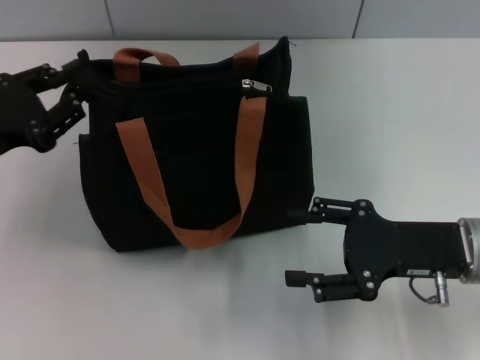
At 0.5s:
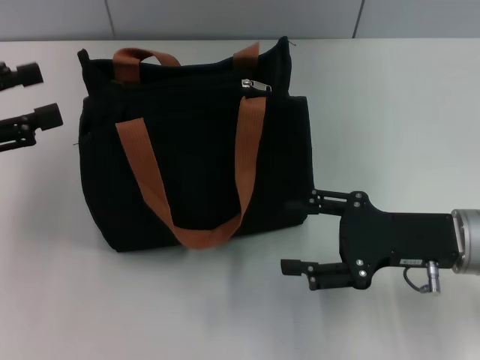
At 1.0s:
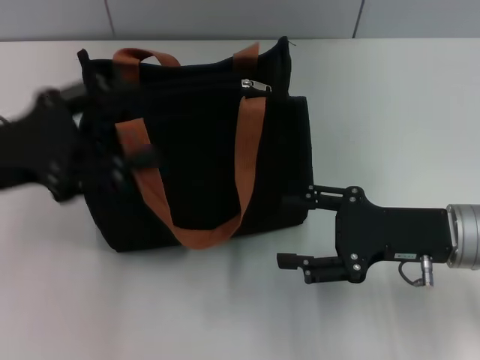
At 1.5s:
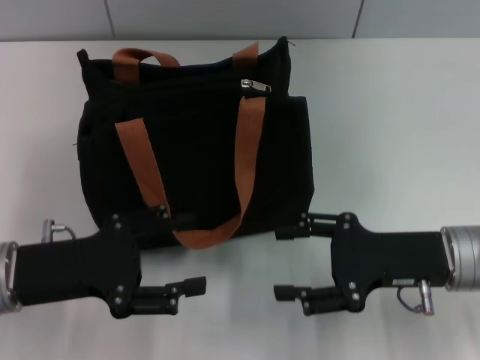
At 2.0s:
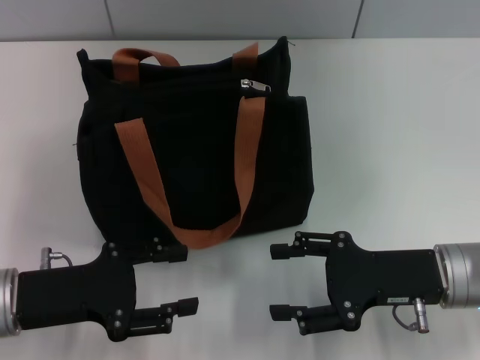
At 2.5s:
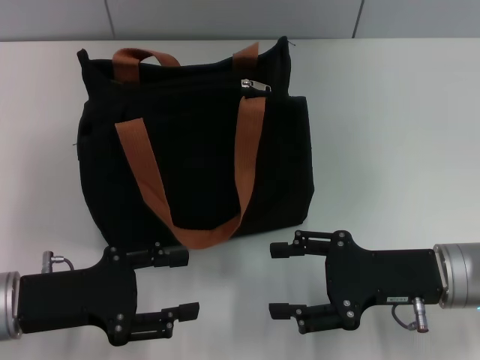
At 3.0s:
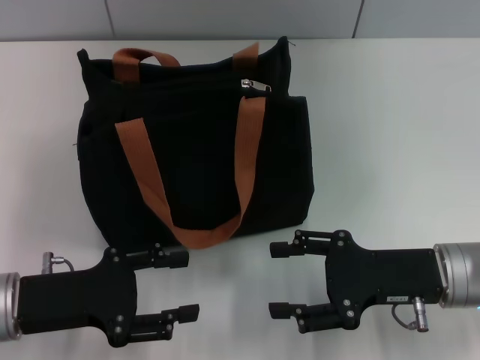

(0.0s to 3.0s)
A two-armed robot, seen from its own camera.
0.0s - 1.5s: The left gripper moves to the right and backward, some 10 cm, and opens.
1.5s - 3.0s: The grippers stay close to where they were, moving slightly.

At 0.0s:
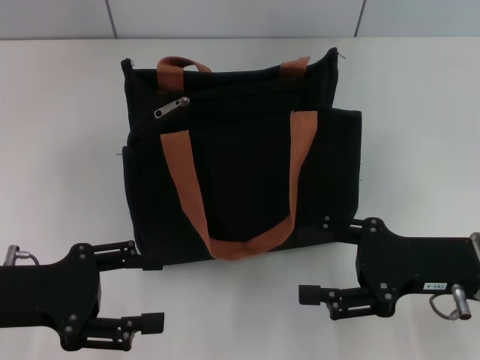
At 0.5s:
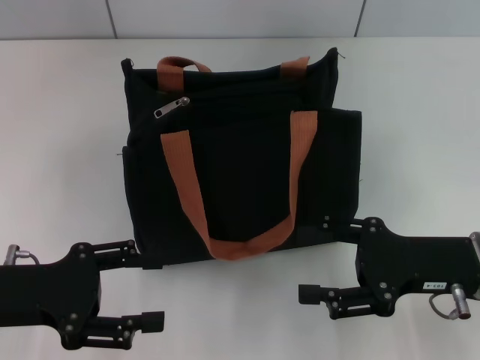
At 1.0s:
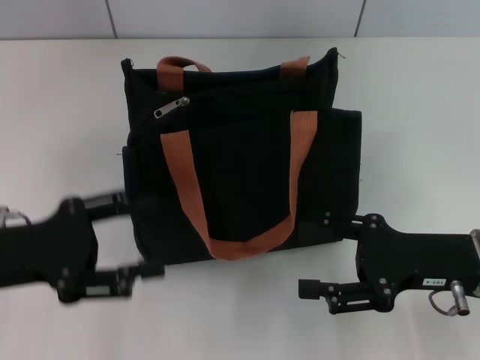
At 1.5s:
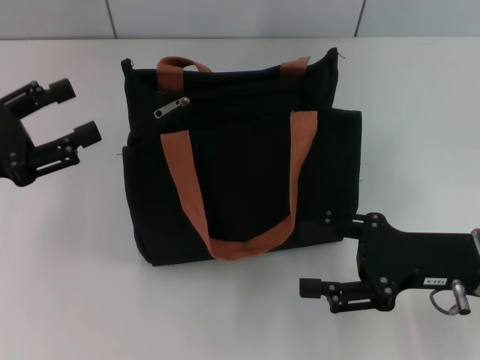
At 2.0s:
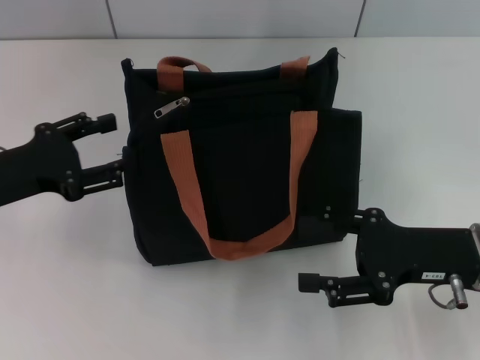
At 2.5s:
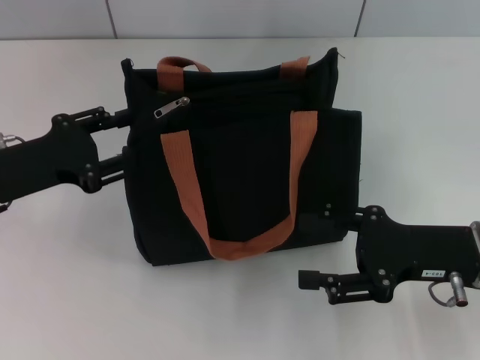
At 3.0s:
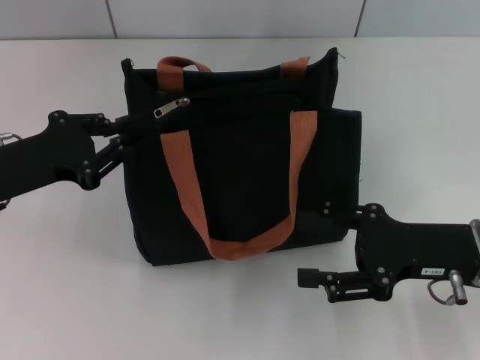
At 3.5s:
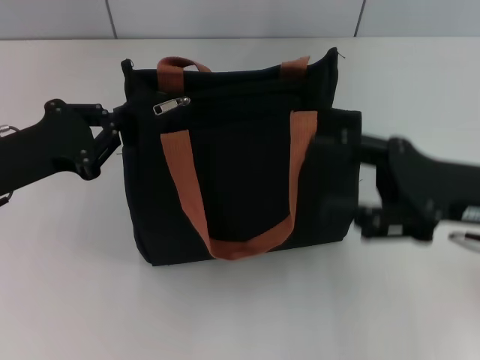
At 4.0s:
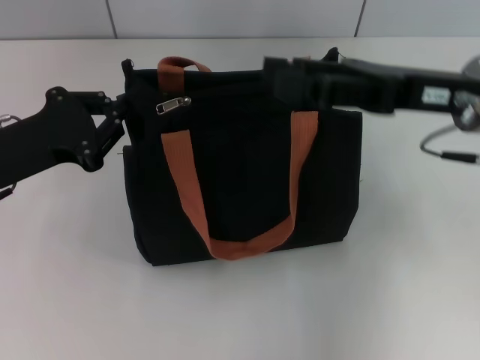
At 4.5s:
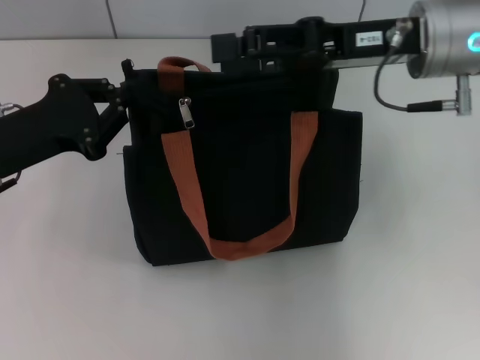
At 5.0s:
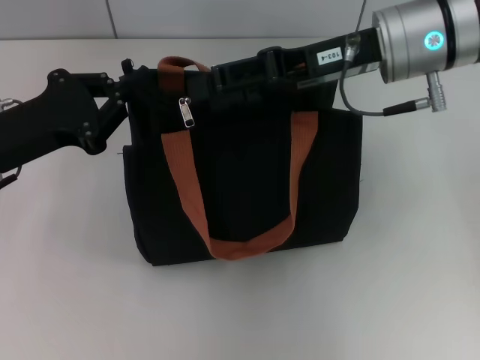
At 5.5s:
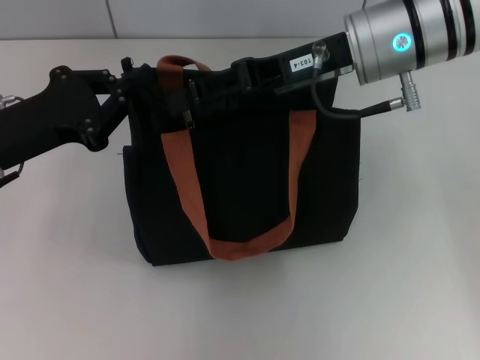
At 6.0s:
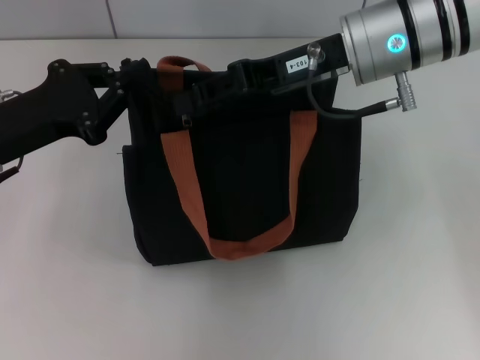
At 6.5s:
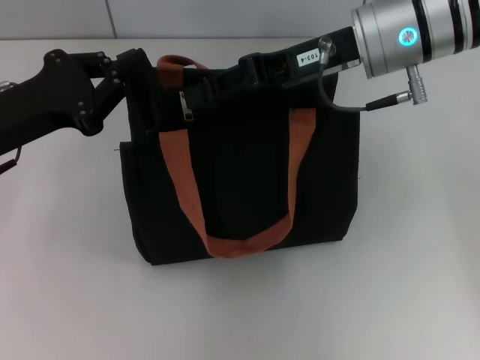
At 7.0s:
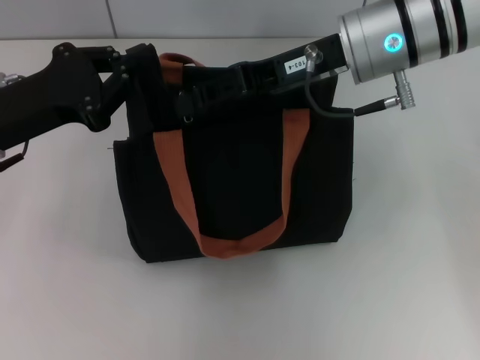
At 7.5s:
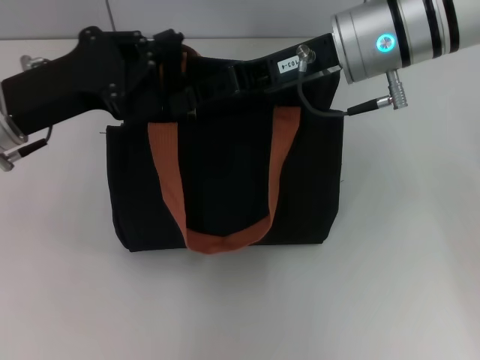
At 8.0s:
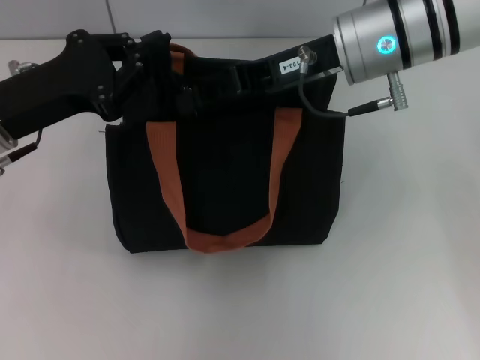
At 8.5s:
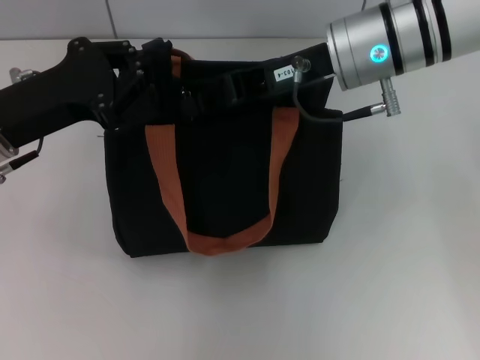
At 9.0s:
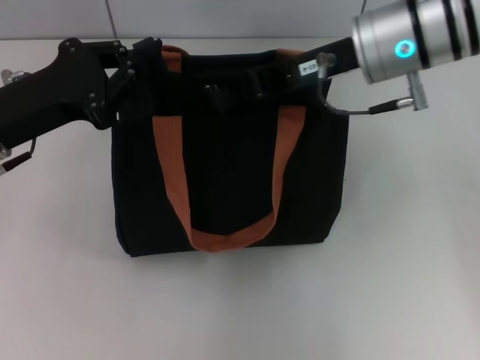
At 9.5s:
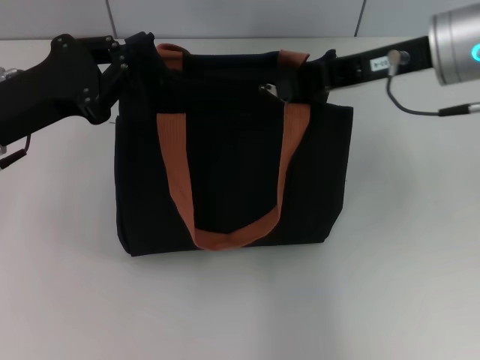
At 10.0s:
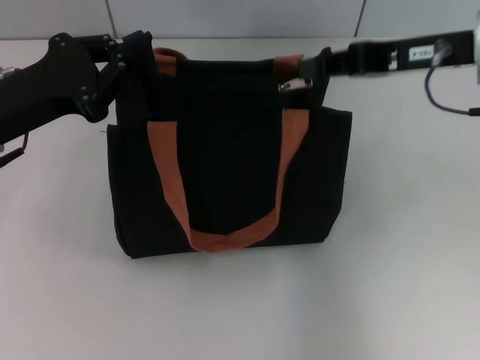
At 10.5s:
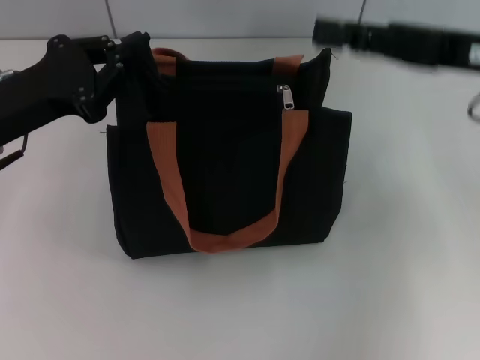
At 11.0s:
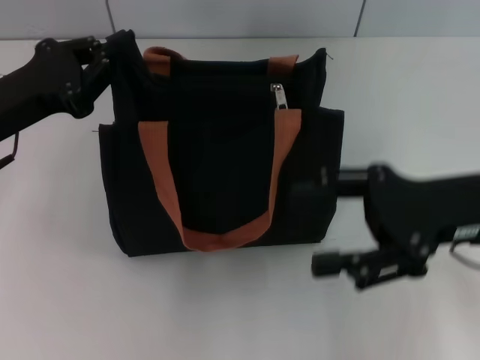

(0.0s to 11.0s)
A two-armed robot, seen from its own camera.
Step, 0.0s - 10.0s: Pull up the zipper with your right hand.
0.0s - 2.0s: The left gripper goes some 5 cm forward.
2.0s - 3.5s: The right gripper is displaced upward by some 5 cm. The left gripper closes.
3.5s - 5.5s: The right gripper travels forward, to the left and upward by some 20 cm.
5.5s - 7.5s: The right gripper closes.
7.5s - 9.0s: The right gripper closes its fingers.
9.0s - 11.0s: The right gripper heads backward, to the right and downward, covering about 15 cm, and opens up.

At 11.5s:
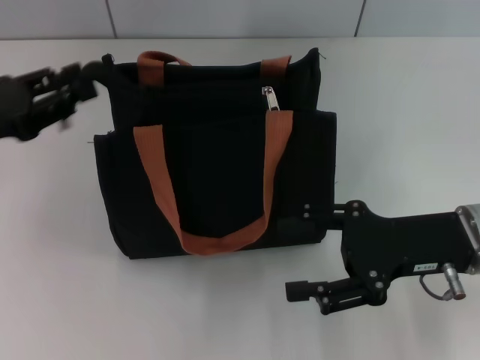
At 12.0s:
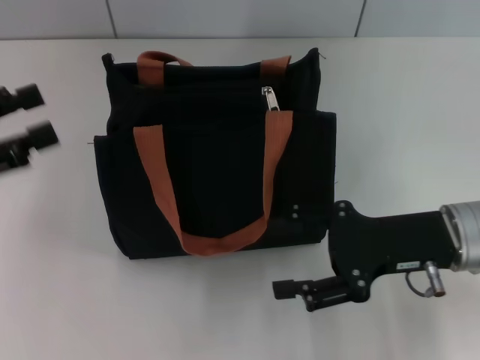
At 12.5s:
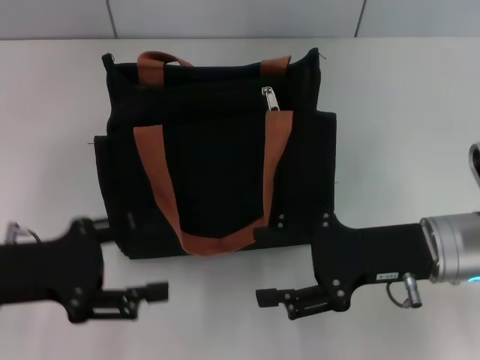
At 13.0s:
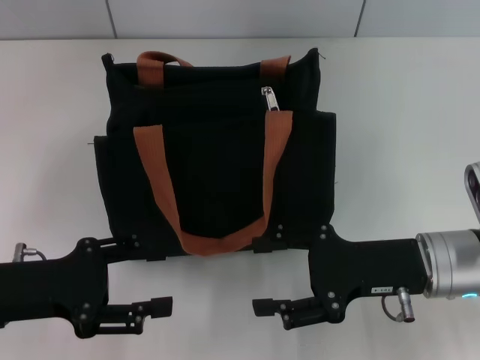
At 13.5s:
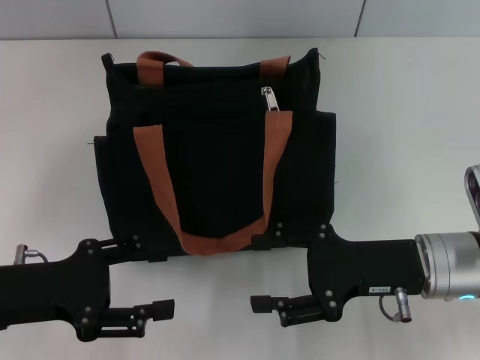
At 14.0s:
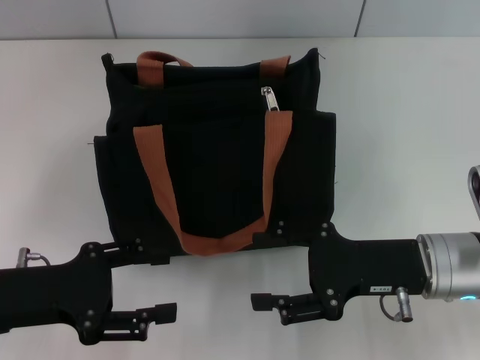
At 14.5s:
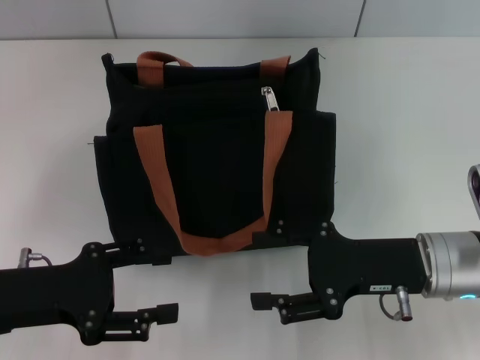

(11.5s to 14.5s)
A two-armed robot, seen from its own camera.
11.5s - 13.0s: The left gripper shifts roughly 10 cm backward and downward, and opens up.
13.0s - 14.5s: The two grippers keep their place.

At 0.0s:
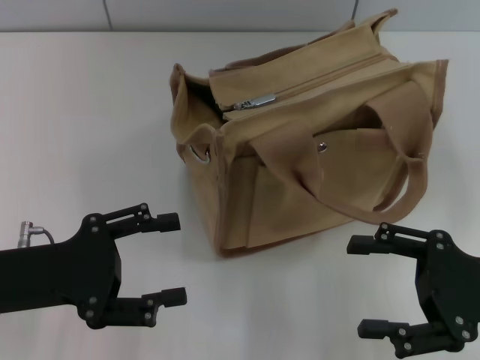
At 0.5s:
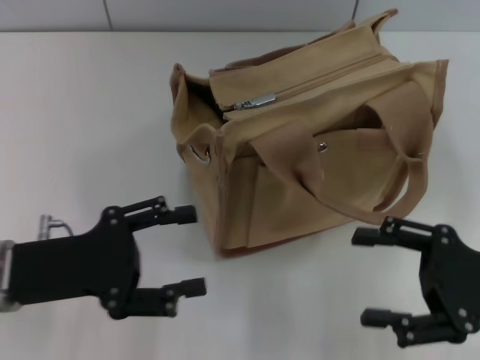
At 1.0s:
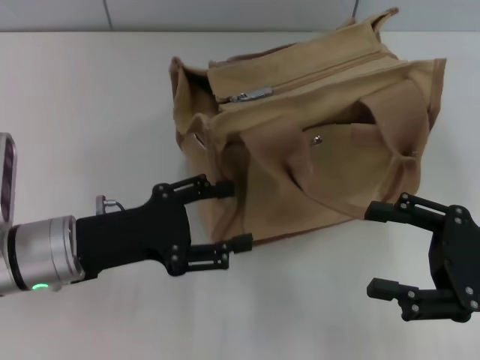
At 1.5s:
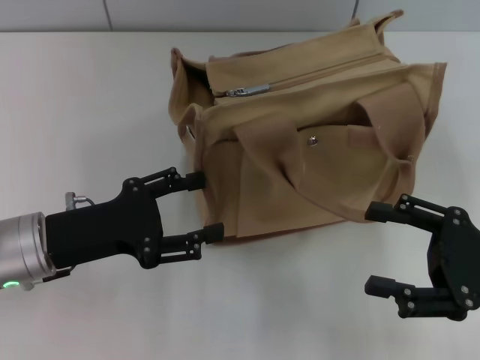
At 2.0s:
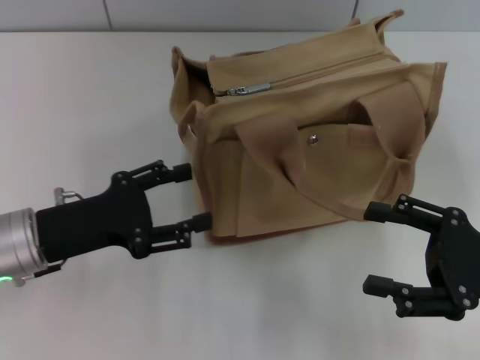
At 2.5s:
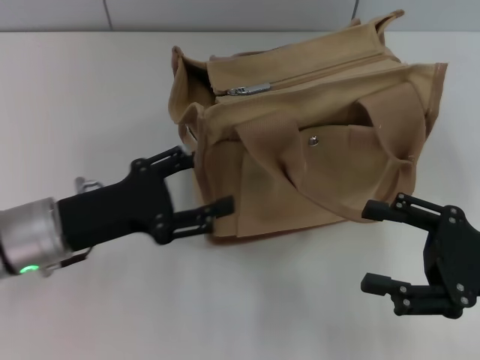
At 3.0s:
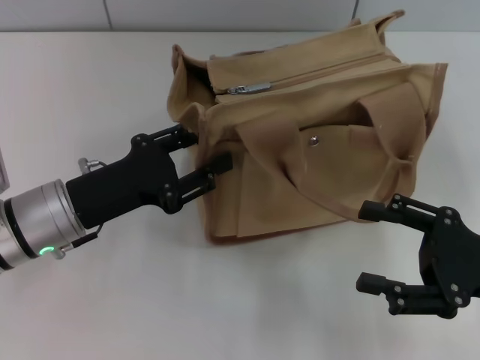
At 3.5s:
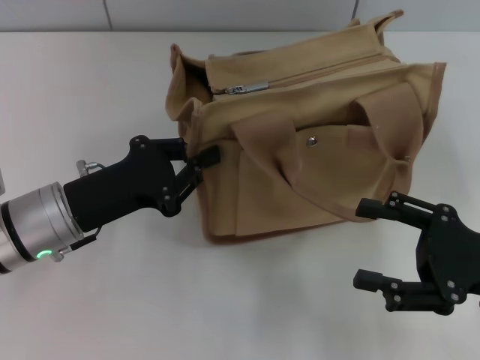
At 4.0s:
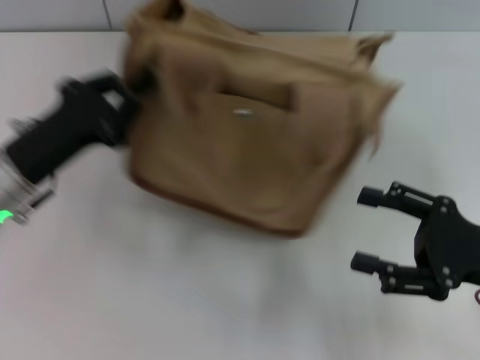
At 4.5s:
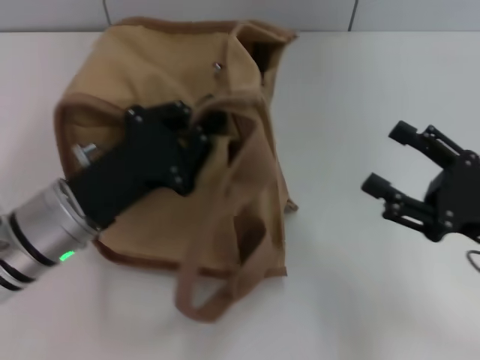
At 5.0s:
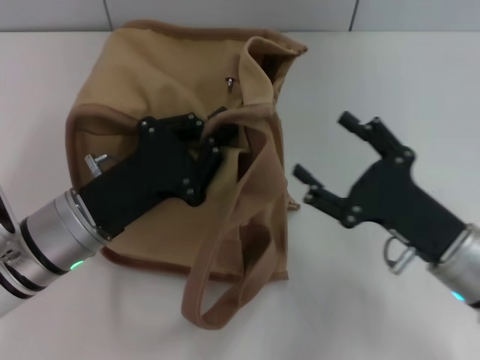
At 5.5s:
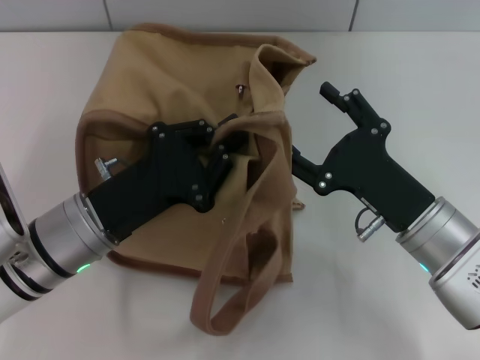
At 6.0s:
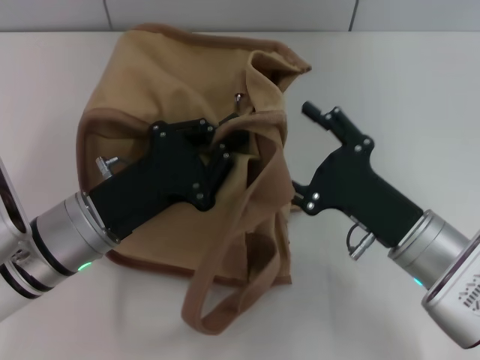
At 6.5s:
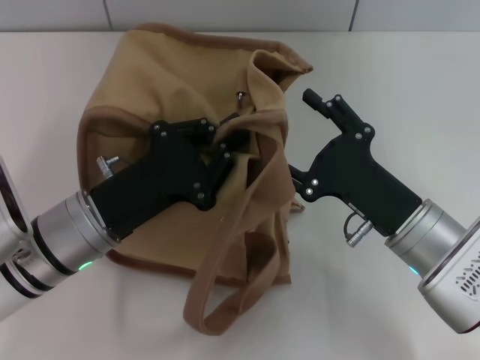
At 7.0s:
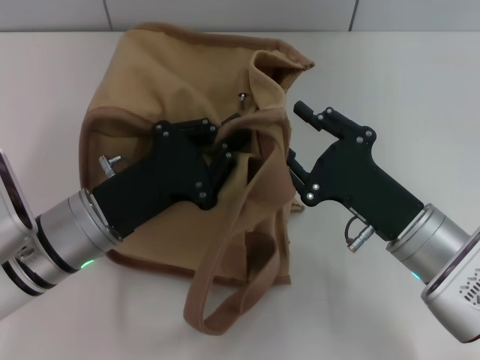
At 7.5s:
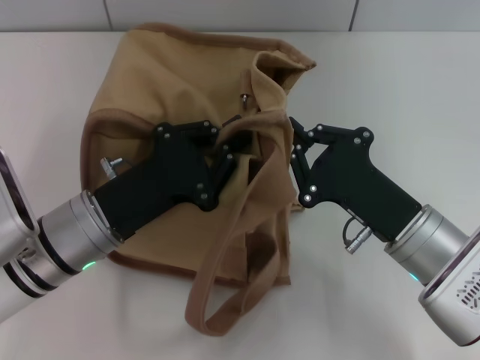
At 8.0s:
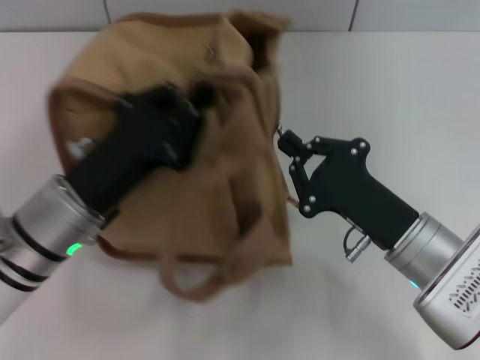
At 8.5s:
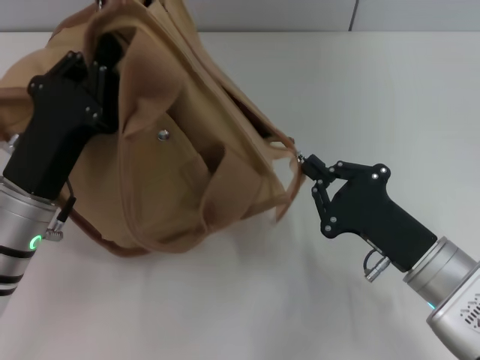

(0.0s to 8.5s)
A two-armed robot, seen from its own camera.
2.0s - 4.0s: The left gripper closes its fingers.
4.0s - 6.5s: The right gripper heads to the left, covering some 10 cm; the left gripper travels to the right by about 5 cm.
6.5s - 8.5s: The right gripper closes.
